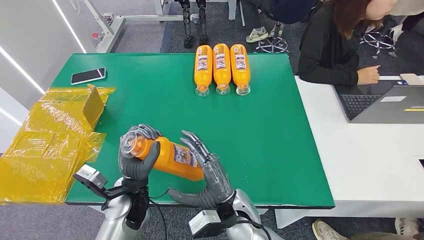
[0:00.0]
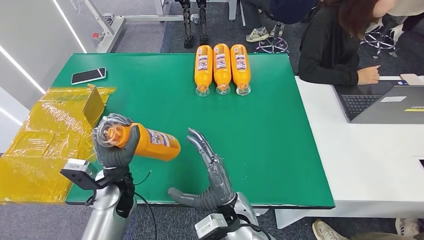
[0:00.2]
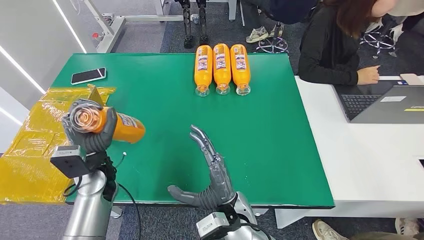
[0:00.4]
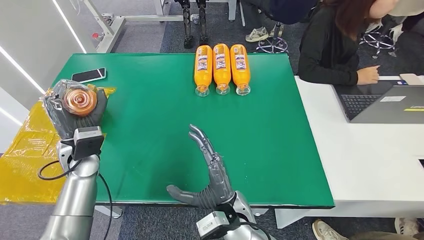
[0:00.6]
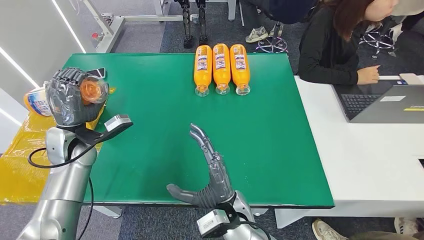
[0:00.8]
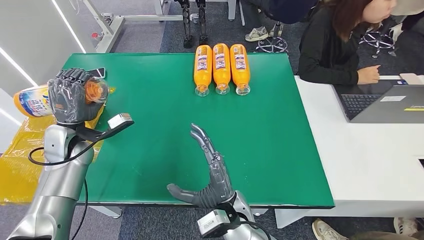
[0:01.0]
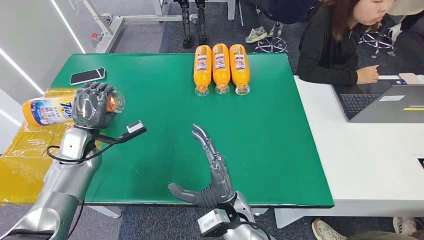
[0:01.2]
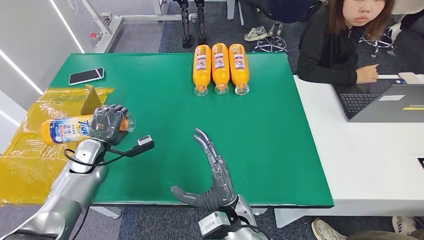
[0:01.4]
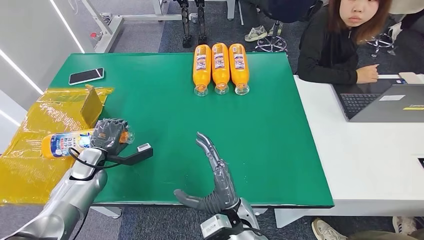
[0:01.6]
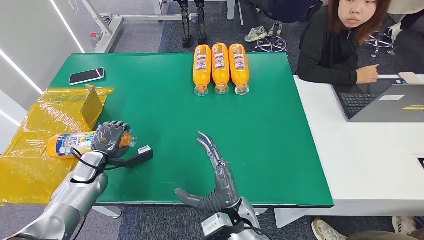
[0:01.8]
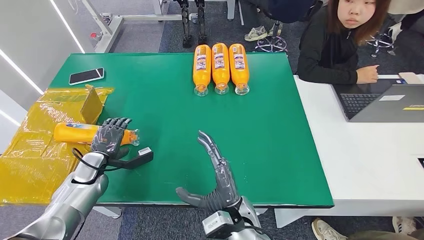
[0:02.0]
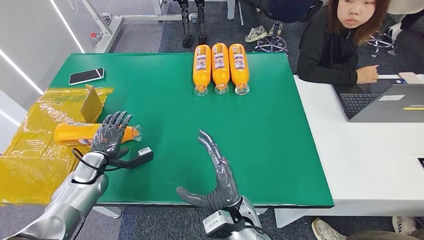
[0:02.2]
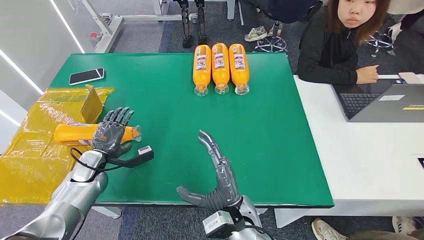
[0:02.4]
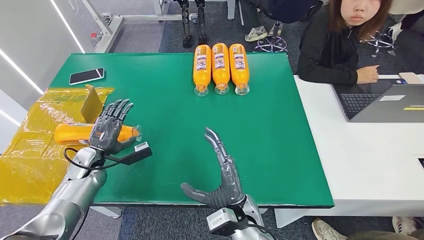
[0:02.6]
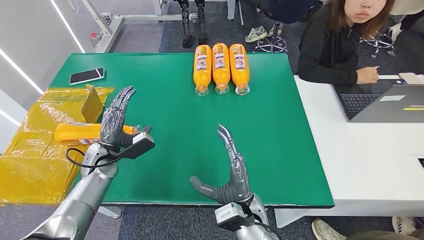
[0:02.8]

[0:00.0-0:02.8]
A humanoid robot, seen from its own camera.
Step, 0:00.0 to 0:02.8: Turn the bottle to the front side.
